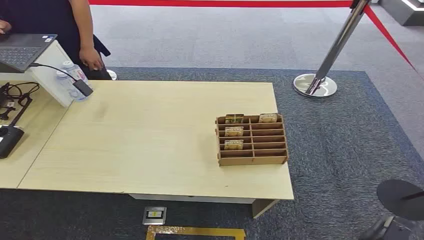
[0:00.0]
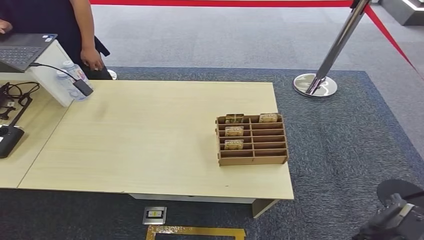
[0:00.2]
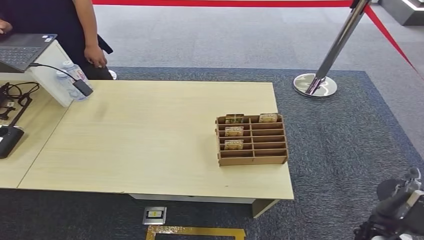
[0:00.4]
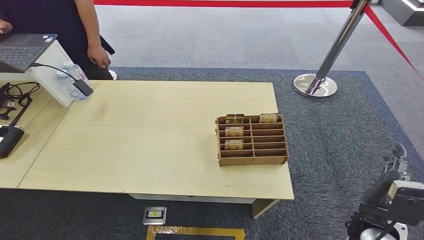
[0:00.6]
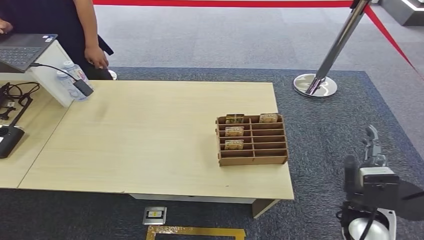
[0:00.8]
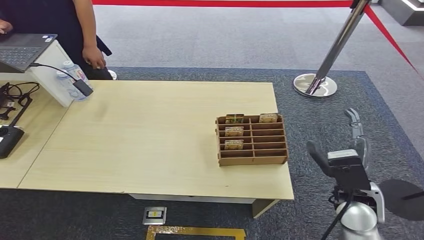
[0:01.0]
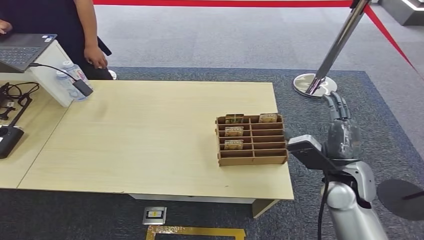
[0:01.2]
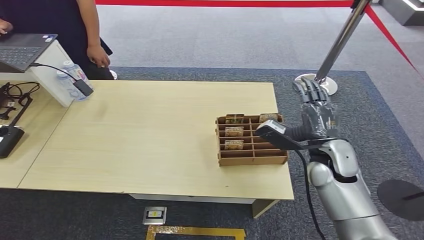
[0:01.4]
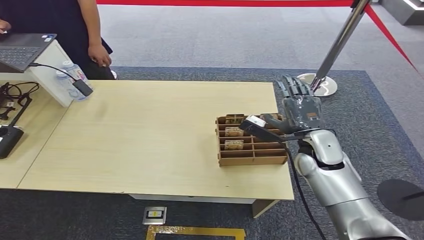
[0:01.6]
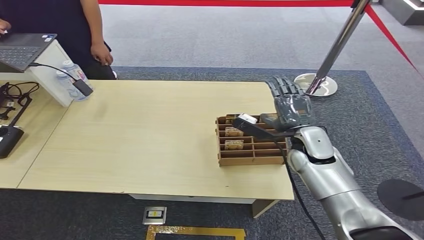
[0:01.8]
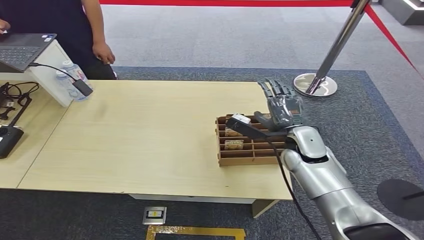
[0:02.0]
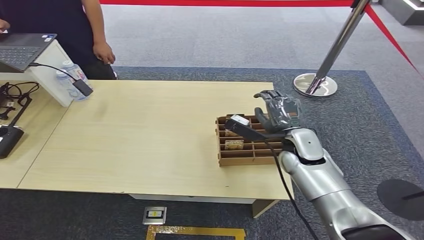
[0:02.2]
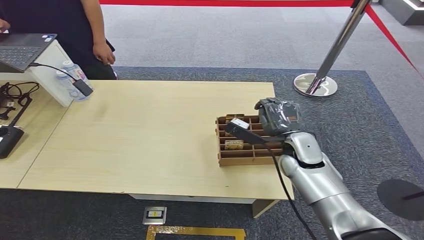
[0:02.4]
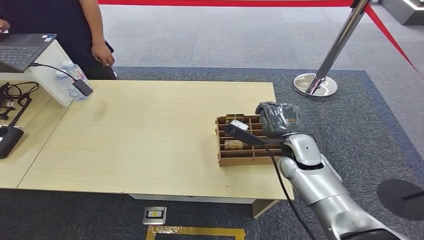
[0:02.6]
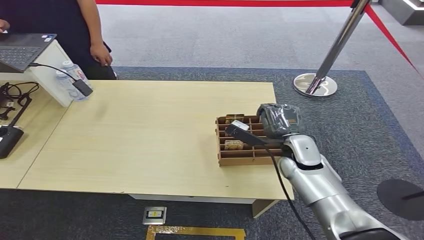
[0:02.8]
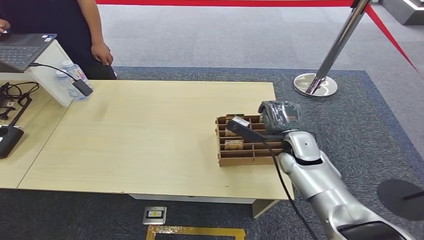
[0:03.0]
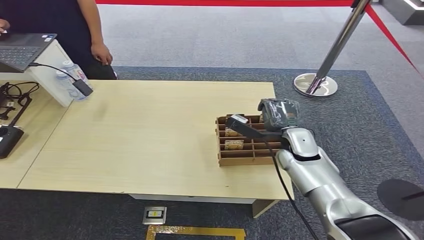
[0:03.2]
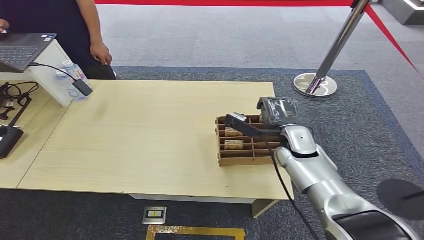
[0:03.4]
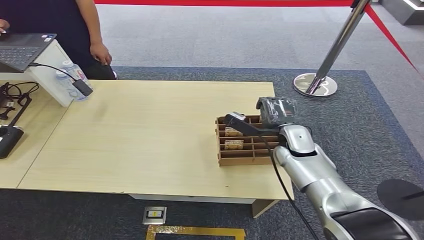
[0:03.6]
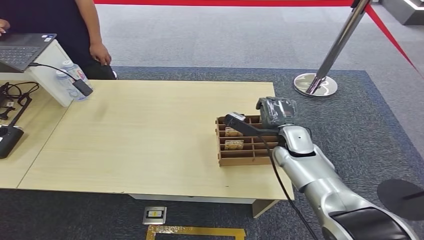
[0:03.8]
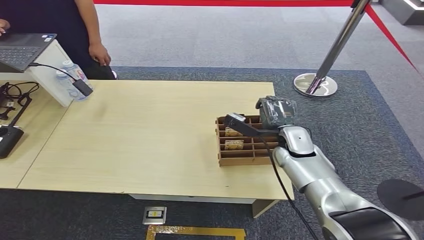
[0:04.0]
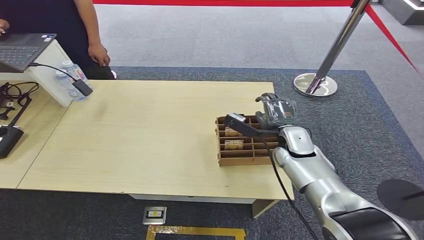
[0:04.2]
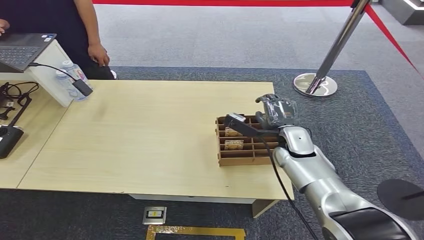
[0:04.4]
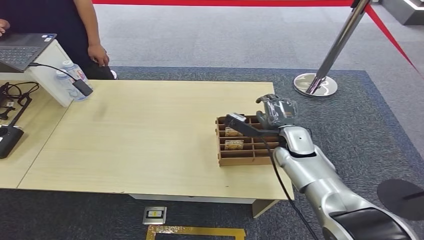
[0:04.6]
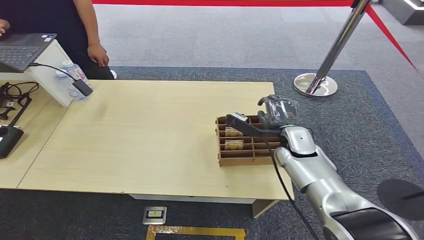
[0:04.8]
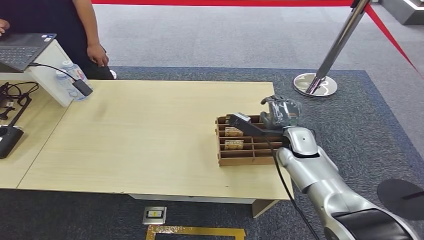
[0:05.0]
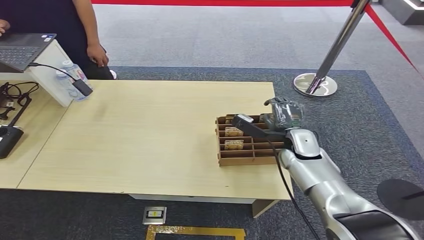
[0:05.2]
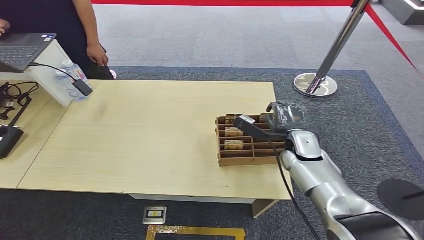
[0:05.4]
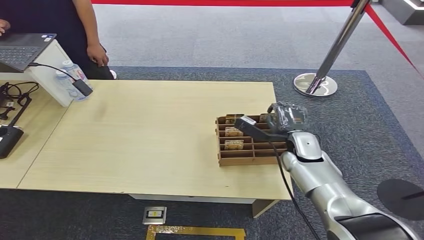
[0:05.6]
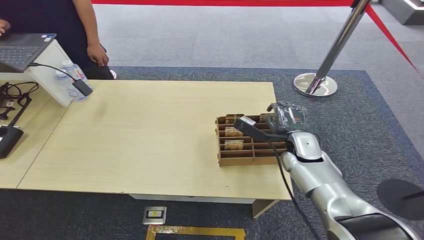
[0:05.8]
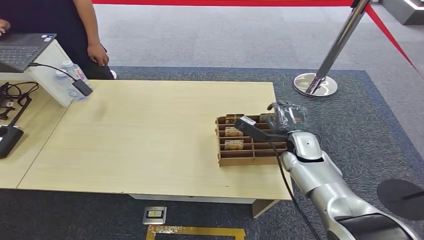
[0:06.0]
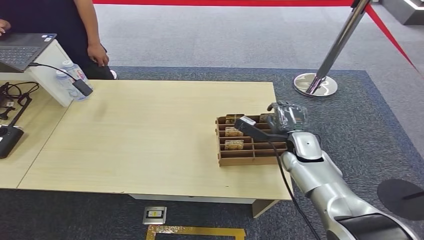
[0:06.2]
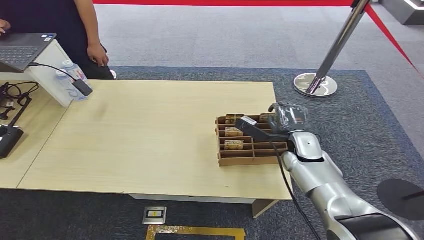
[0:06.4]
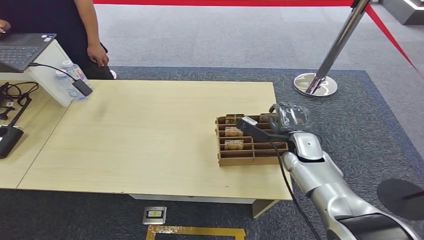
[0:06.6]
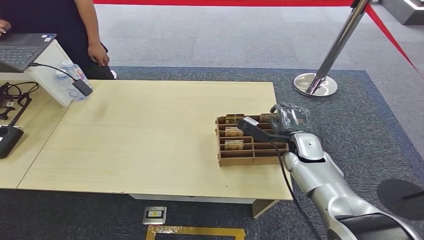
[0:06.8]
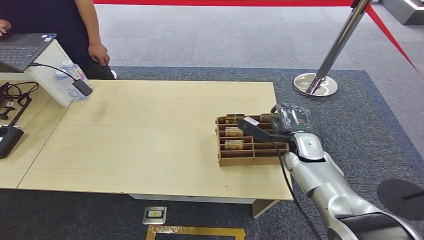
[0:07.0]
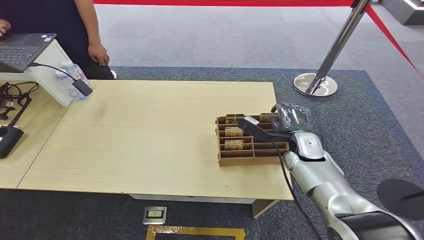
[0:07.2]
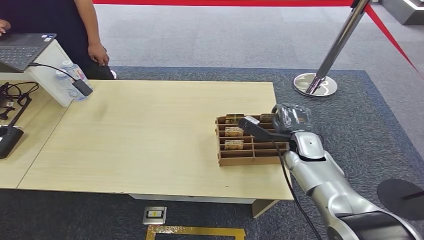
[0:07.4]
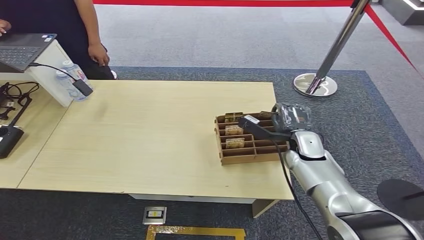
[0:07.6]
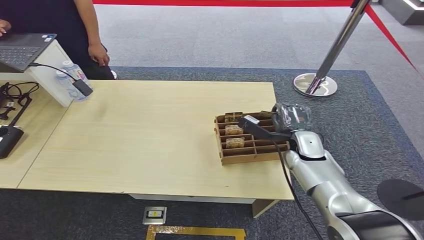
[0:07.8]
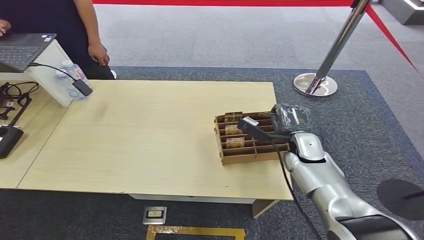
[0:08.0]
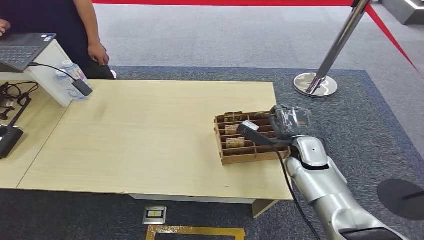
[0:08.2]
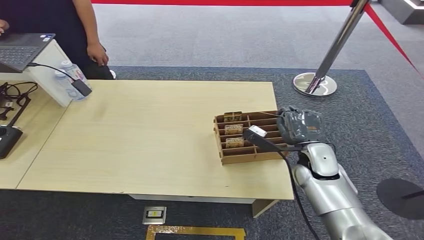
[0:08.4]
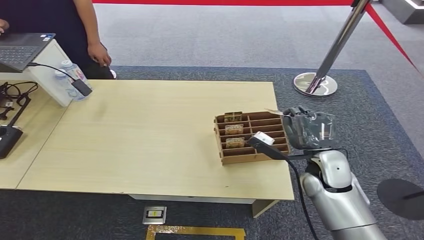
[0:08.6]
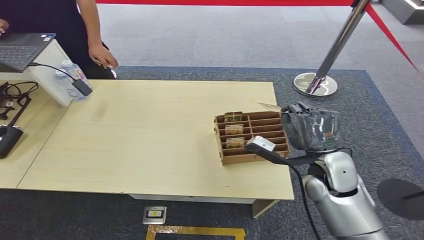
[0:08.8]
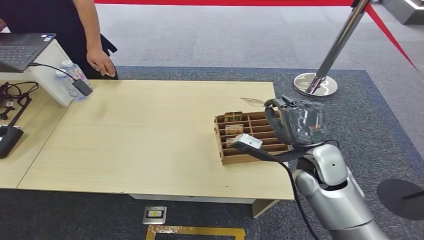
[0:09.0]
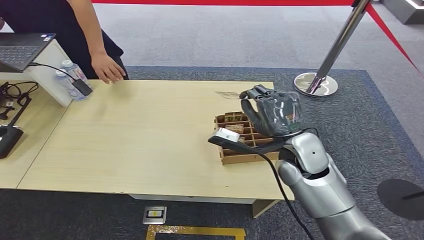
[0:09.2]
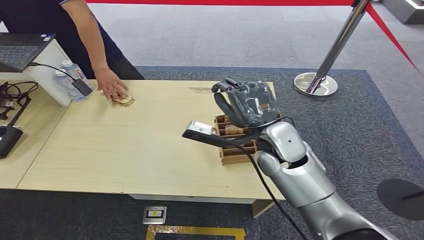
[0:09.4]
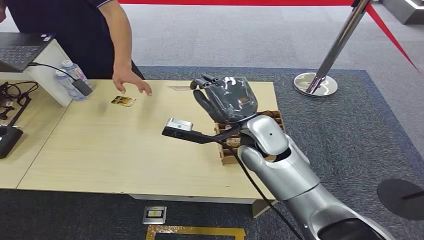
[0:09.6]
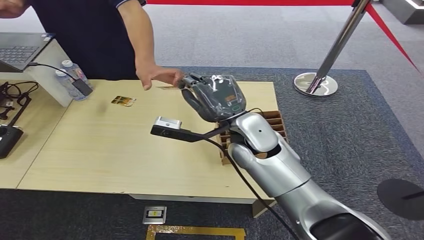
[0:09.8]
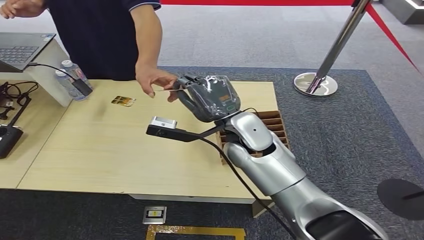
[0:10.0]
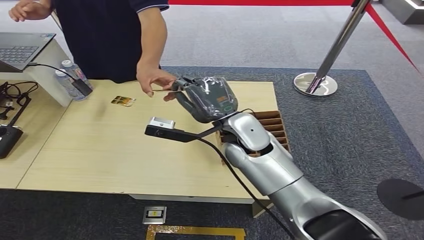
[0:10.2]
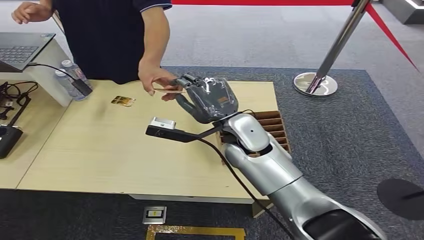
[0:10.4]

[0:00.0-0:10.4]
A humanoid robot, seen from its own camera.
Step, 0:00.0 to 0:08.6: Pick up the room card from the card holder.
Step, 0:08.8 to 0:10.2: Hand the room card to the target.
0:01.4 to 0:03.0: There are only small adjustments of the hands.
0:03.0 to 0:04.4: Neither hand changes place.
0:04.4 to 0:06.0: The hands make only small movements.
0:06.0 to 0:07.4: Both hands stay put.
0:07.4 to 0:09.0: The right hand heads upward, to the left and backward, covering approximately 15 cm.
